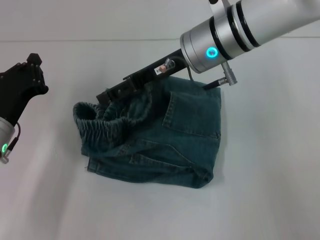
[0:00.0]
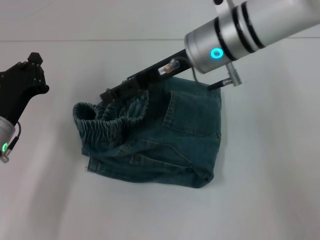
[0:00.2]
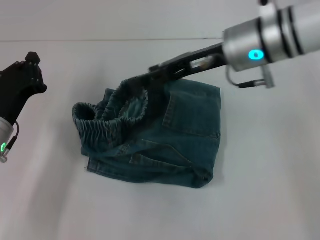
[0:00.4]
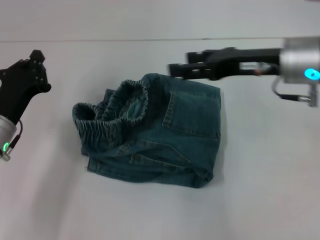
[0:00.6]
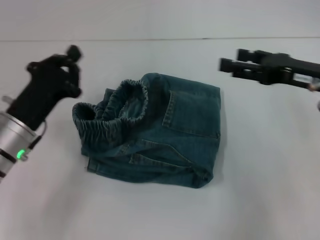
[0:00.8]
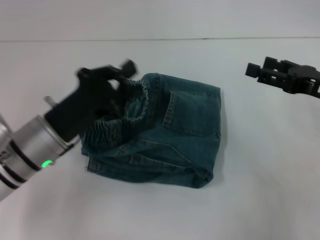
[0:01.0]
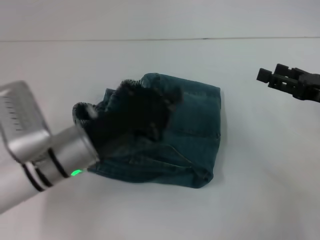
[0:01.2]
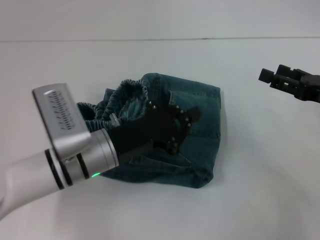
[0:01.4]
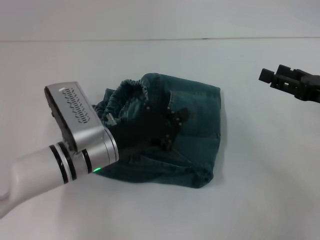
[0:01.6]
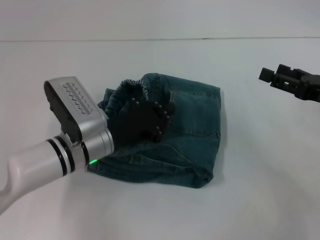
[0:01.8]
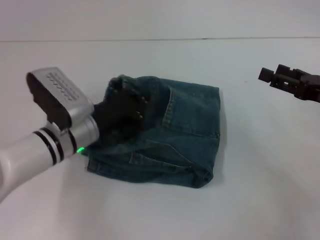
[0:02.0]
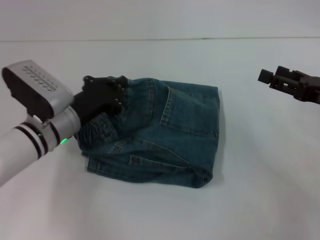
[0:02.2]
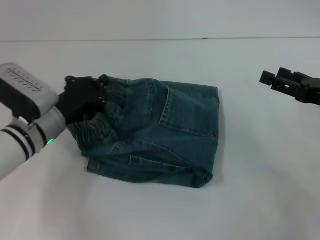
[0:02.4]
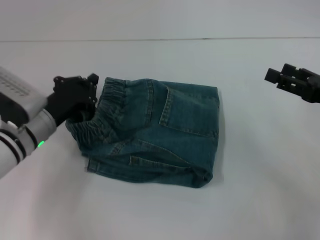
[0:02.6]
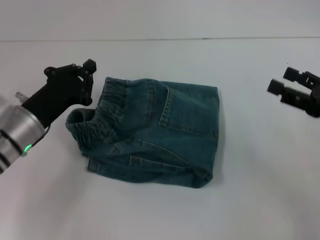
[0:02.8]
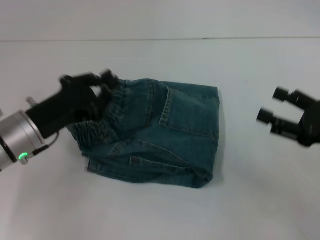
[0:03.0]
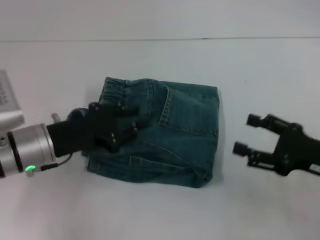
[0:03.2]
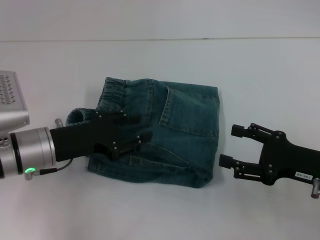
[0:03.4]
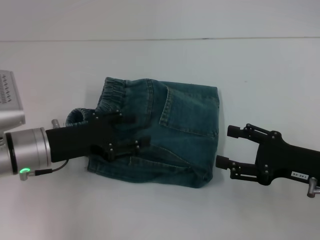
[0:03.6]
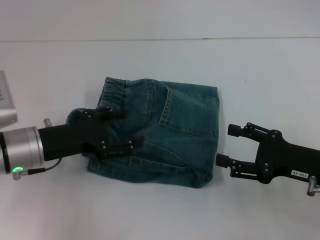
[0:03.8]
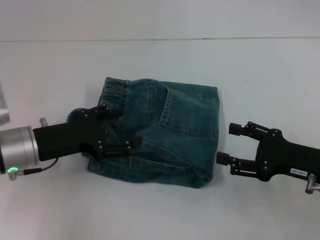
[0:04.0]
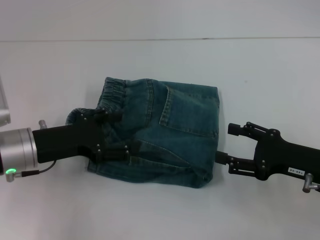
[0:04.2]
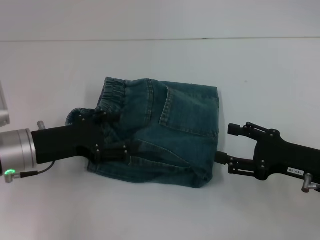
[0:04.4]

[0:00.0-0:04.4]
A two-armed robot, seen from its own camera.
Step, 0:00.2 to 0:02.4: Adjust the pants with your left hand.
0:00.0 to 0:01.4: The right gripper travels to the right and backward by about 25 cm; the left gripper goes roughly 15 cm to the right.
0:01.4 to 0:03.0: The left gripper travels to the left by some 10 cm. The right gripper moves approximately 5 cm.
0:03.0 to 0:04.4: The right gripper moves some 5 cm. Meanwhile the left gripper opens its fingers.
